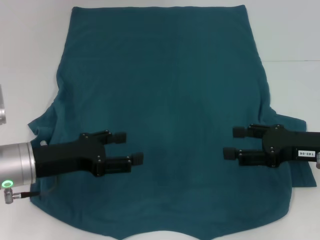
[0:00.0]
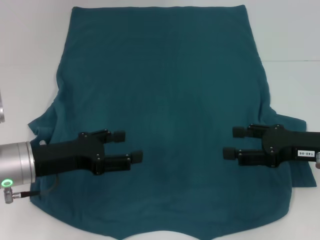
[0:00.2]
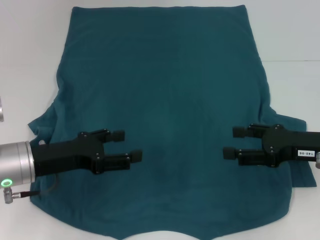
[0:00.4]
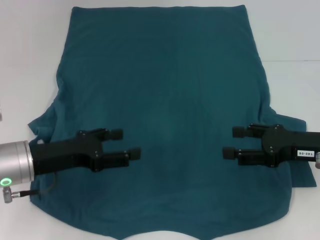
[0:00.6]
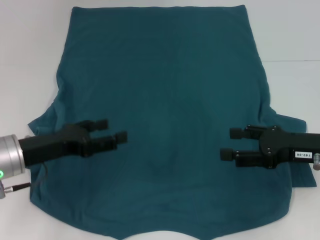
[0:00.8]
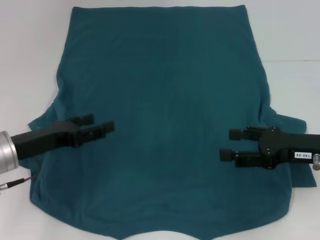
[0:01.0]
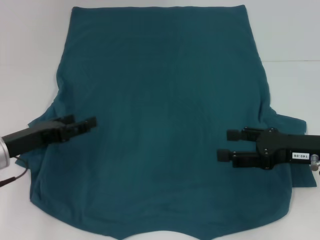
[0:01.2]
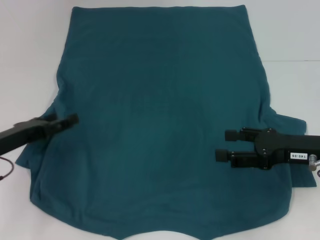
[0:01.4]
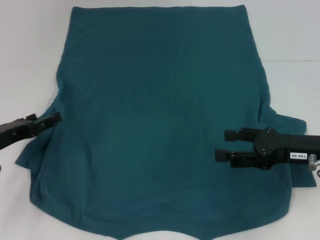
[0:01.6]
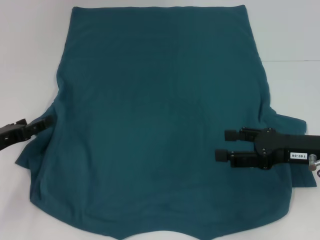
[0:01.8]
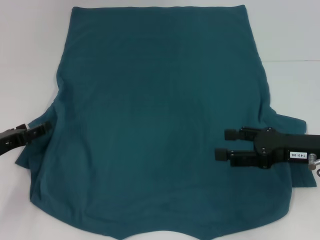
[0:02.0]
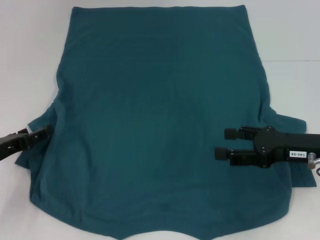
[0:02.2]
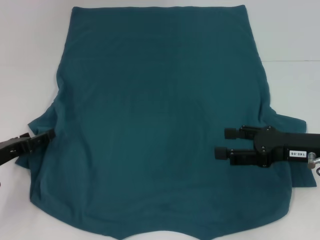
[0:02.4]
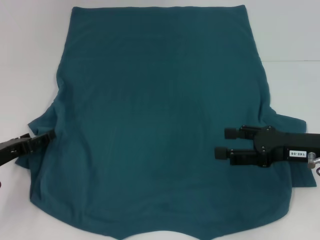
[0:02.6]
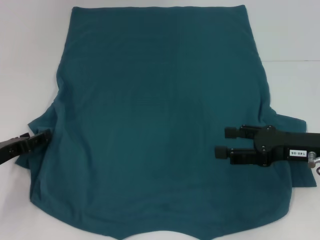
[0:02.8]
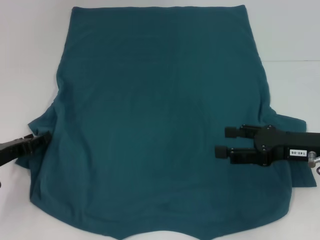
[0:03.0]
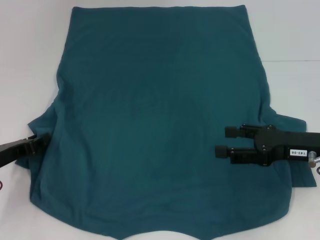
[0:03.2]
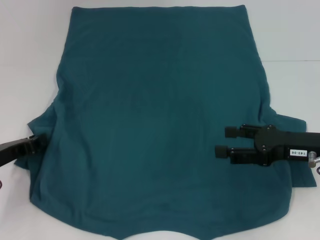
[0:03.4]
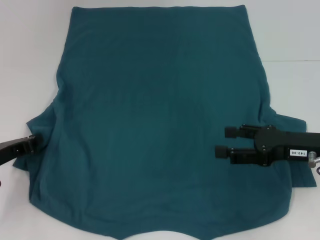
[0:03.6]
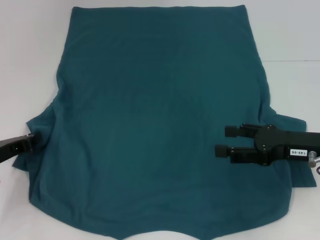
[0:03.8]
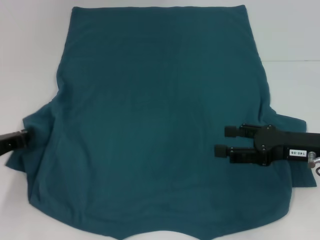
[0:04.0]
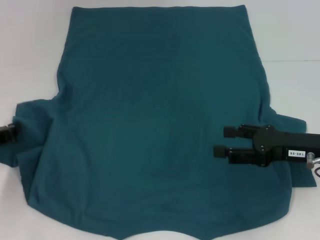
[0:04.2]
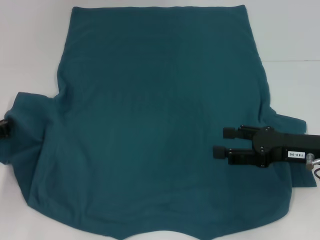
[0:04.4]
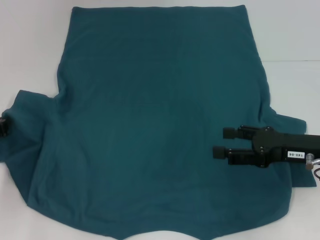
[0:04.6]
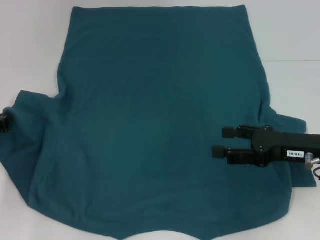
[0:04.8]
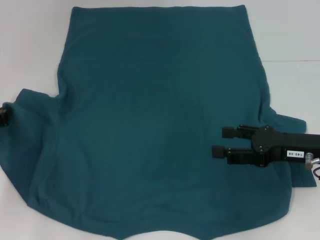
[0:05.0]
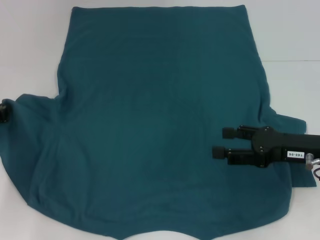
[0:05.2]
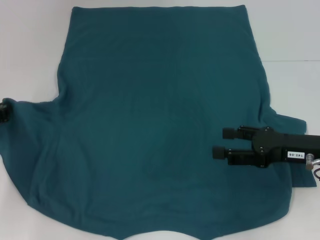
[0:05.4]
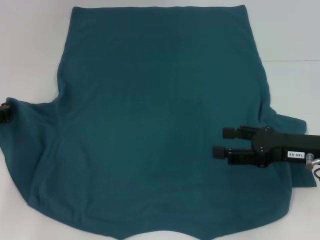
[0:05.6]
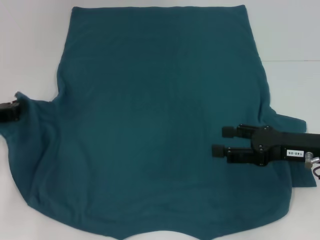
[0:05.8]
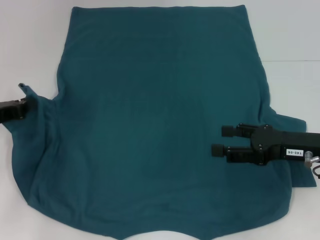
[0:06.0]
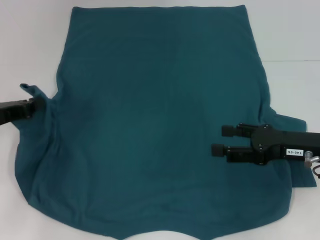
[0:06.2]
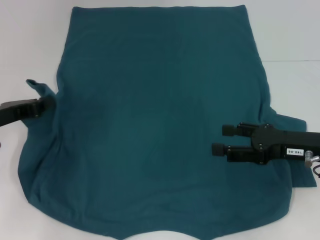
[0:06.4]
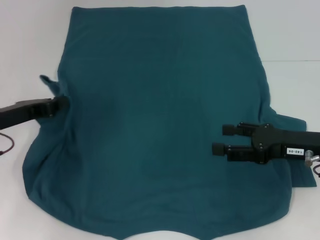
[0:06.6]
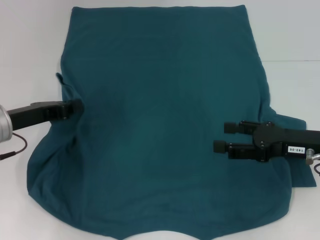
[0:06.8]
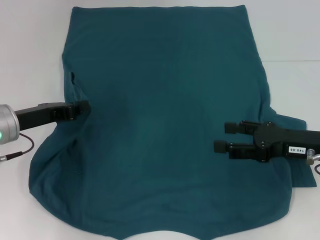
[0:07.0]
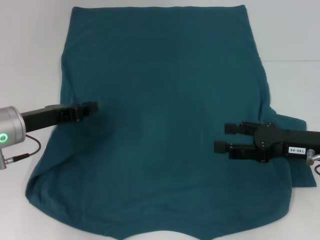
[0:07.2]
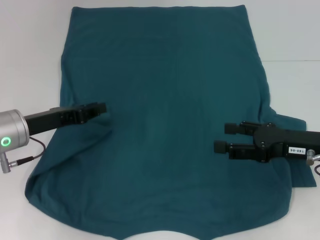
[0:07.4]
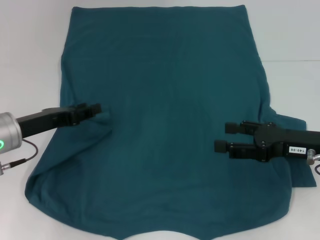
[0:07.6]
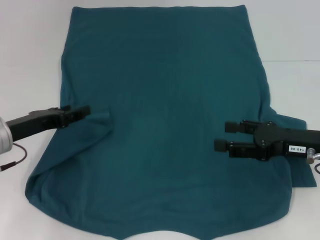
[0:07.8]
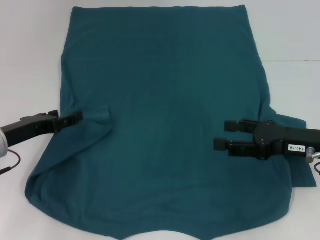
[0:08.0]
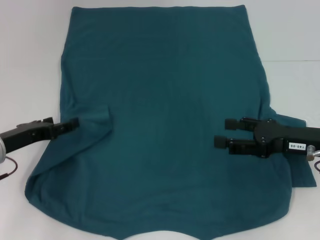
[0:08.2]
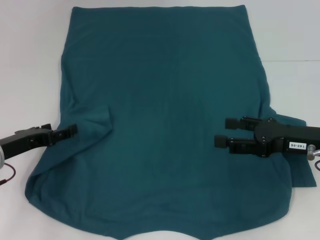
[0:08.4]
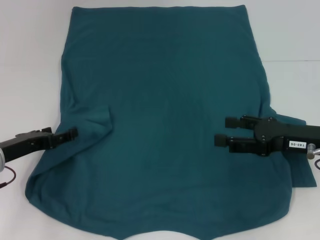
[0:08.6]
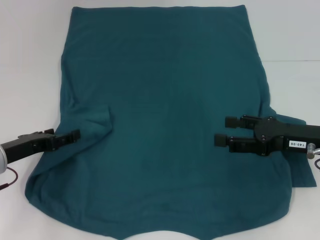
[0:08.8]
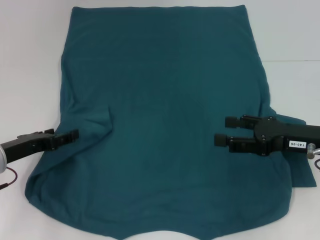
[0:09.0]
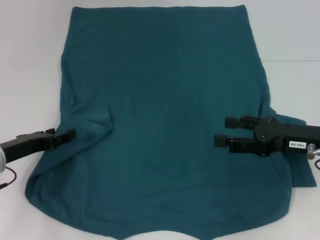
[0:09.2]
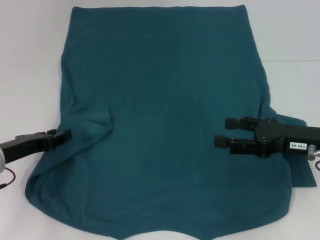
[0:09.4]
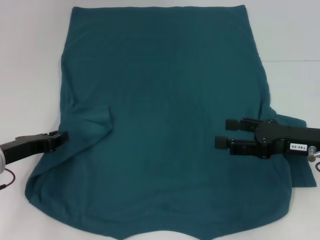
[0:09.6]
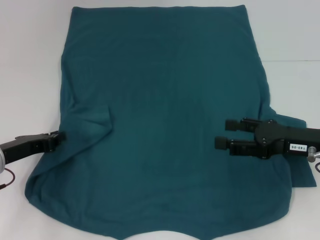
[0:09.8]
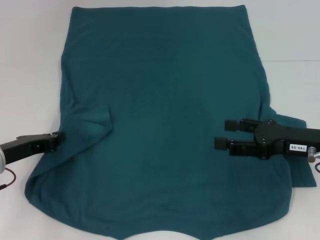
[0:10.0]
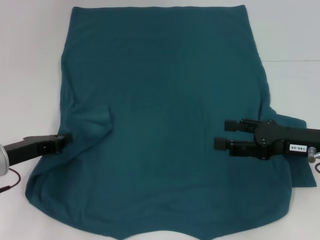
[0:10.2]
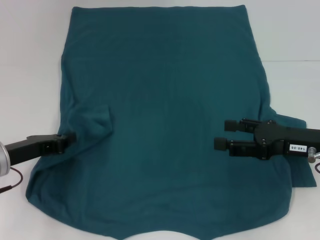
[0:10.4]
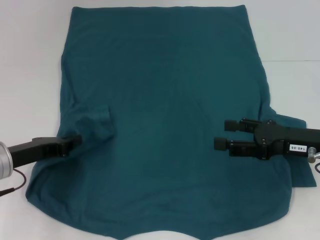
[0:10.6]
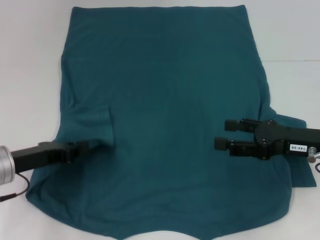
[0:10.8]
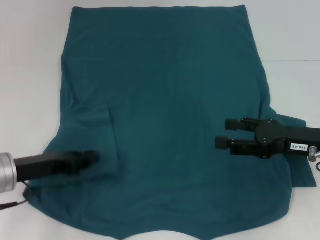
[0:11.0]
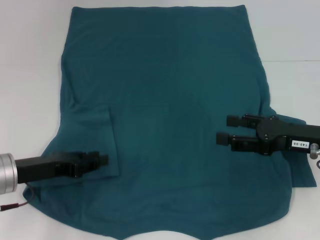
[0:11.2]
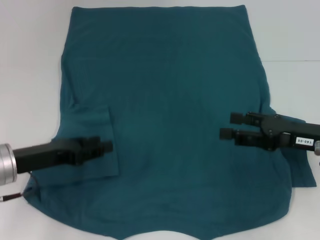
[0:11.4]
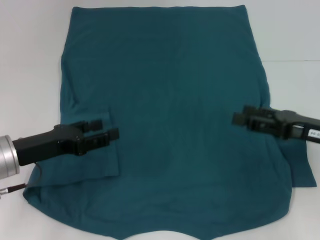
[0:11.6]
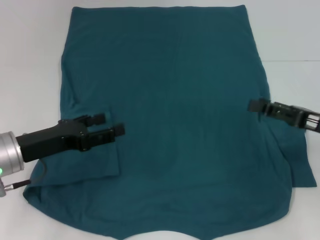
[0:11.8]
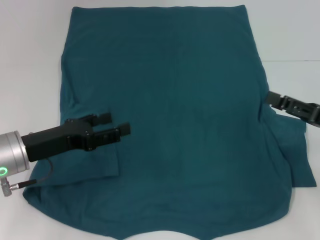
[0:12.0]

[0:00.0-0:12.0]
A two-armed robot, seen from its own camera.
Step, 0:00.0 to 0:11.2: Fold the bottom left sleeve with your left hand.
0:00.0 to 0:01.6: The left gripper travels to the left by some 10 cm.
0:01.6 to 0:03.0: The grippers make only small movements.
0:03.0 to 0:04.4: The left gripper closes up.
0:04.4 to 0:06.0: The grippers stay close to where they were, moving slightly.
0:06.0 to 0:07.6: The left gripper travels to the right by approximately 5 cm.
0:07.6 to 0:09.0: The left gripper moves approximately 5 cm, and opens its fingers.
0:09.0 to 0:10.4: The left gripper closes its fingers.
0:10.4 to 0:12.0: The right gripper moves to the right, some 5 cm. The left gripper opens its fingers.

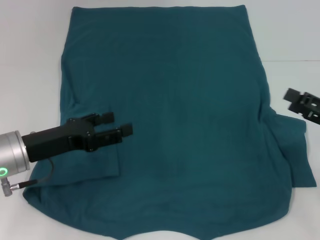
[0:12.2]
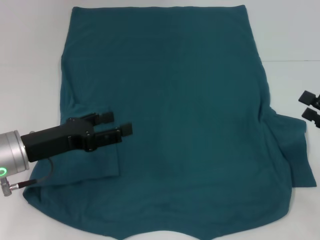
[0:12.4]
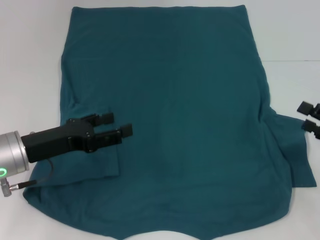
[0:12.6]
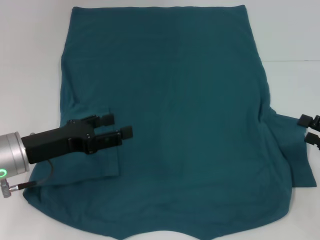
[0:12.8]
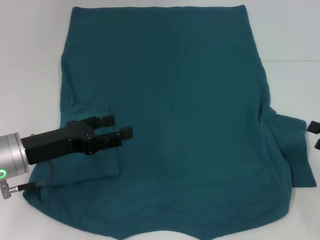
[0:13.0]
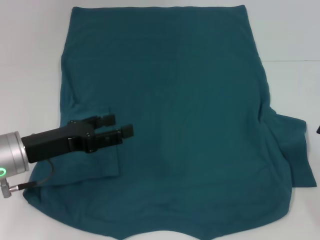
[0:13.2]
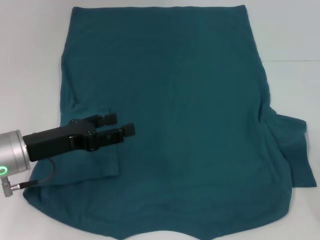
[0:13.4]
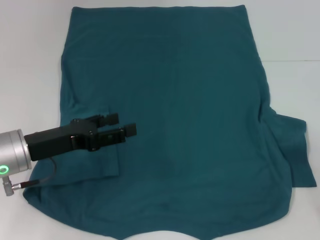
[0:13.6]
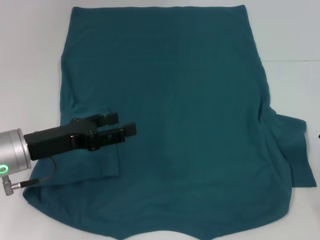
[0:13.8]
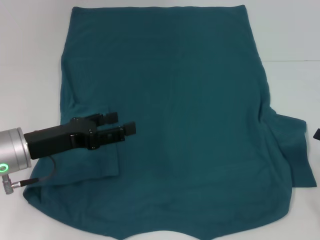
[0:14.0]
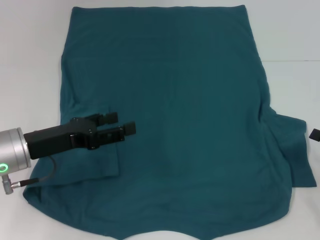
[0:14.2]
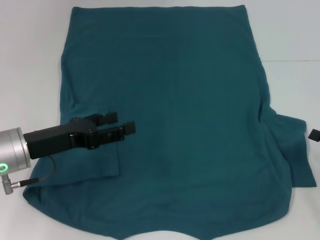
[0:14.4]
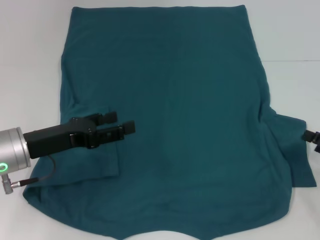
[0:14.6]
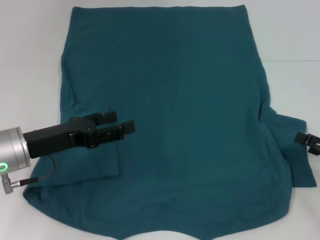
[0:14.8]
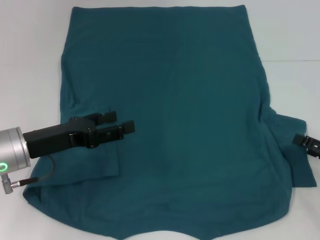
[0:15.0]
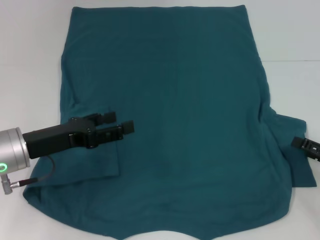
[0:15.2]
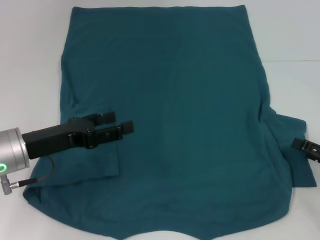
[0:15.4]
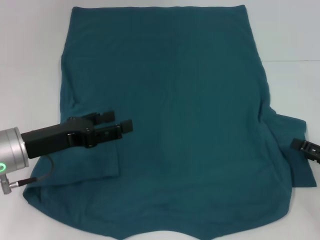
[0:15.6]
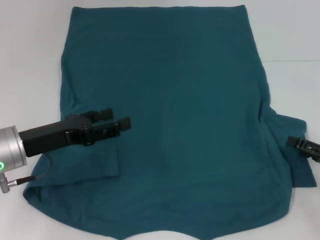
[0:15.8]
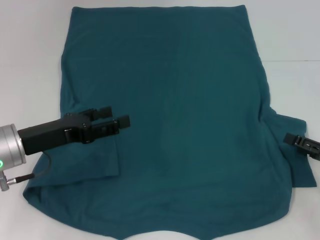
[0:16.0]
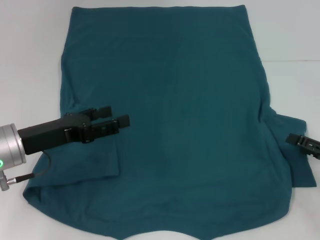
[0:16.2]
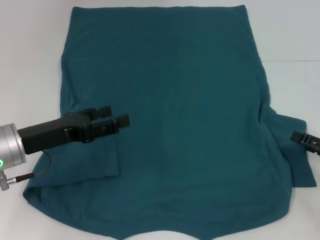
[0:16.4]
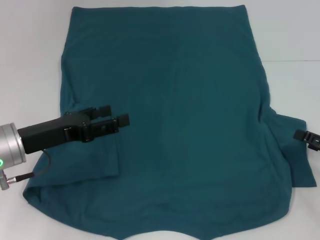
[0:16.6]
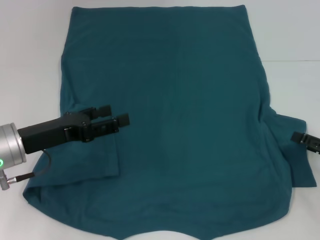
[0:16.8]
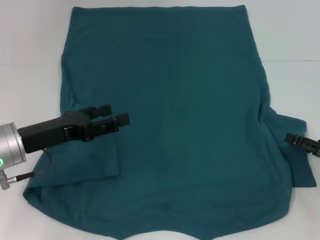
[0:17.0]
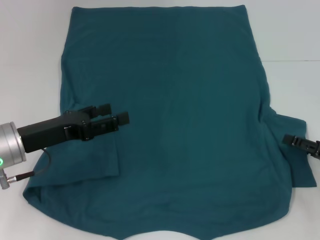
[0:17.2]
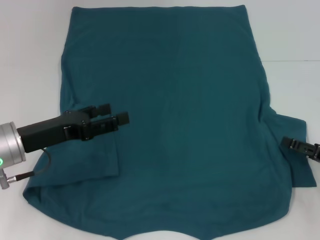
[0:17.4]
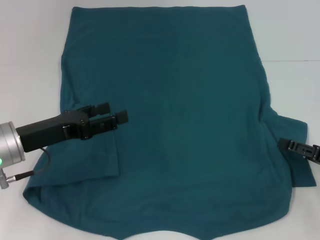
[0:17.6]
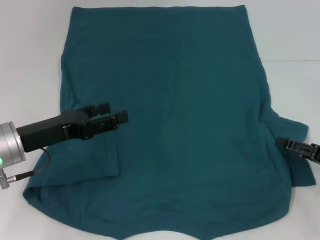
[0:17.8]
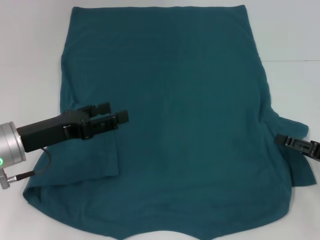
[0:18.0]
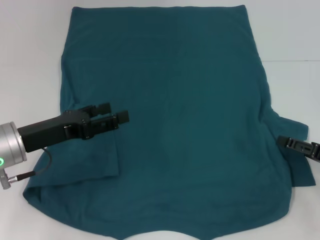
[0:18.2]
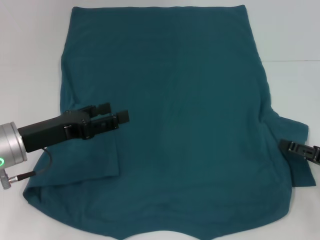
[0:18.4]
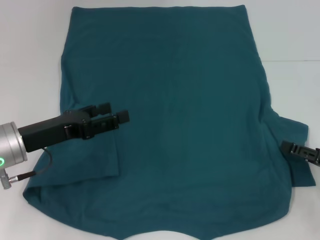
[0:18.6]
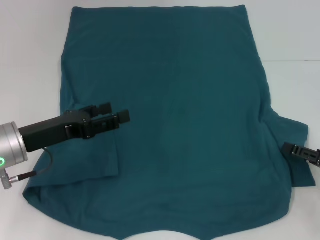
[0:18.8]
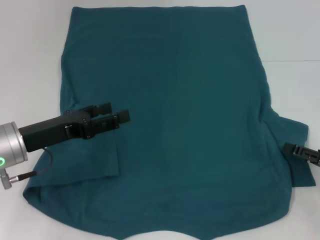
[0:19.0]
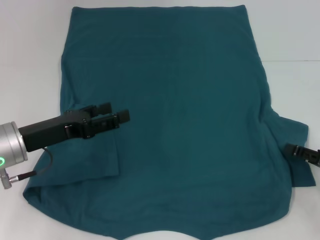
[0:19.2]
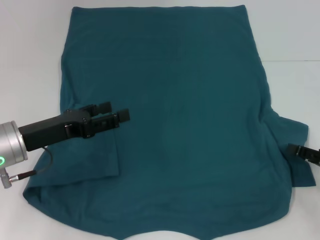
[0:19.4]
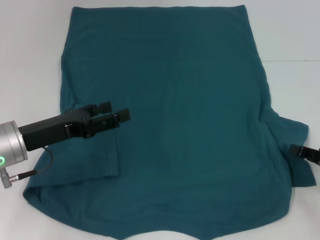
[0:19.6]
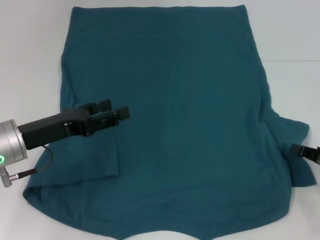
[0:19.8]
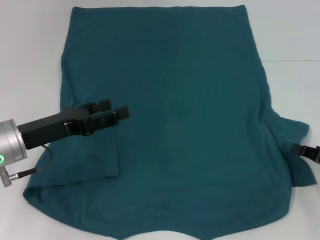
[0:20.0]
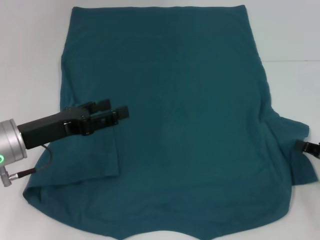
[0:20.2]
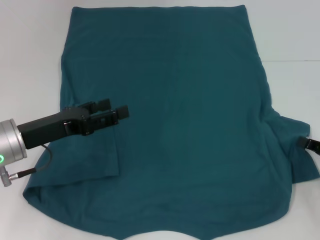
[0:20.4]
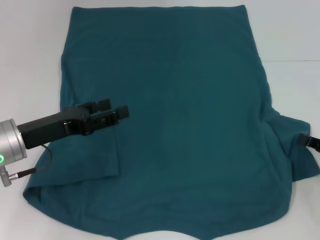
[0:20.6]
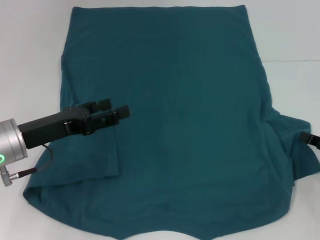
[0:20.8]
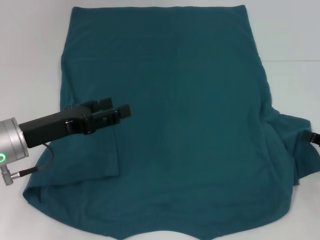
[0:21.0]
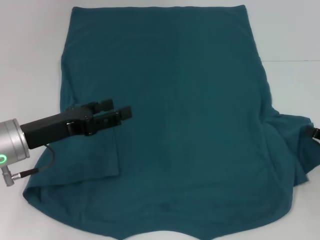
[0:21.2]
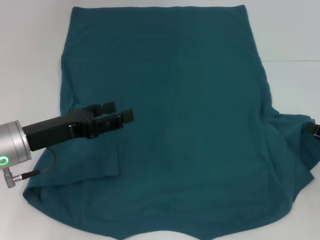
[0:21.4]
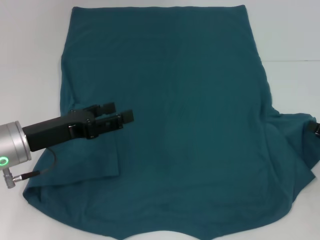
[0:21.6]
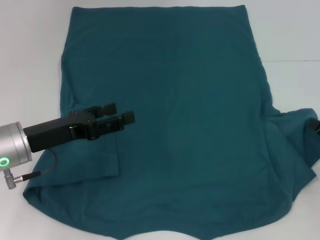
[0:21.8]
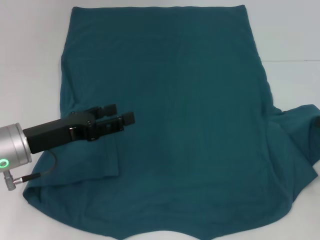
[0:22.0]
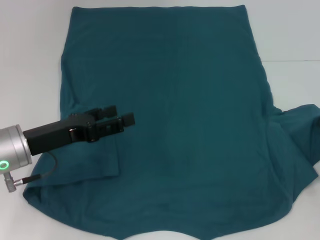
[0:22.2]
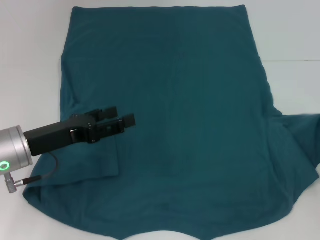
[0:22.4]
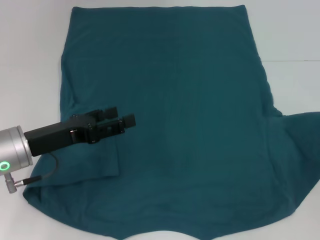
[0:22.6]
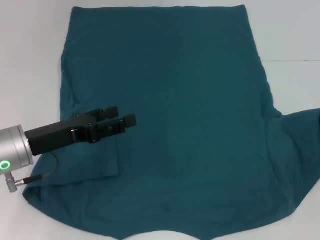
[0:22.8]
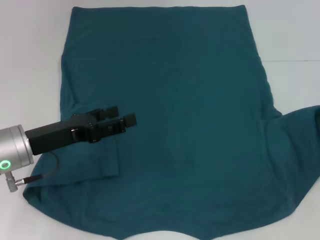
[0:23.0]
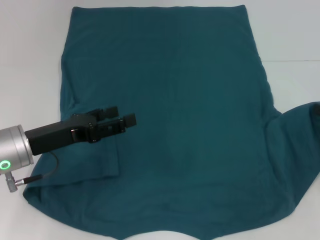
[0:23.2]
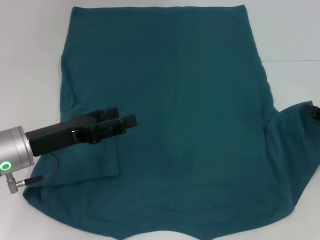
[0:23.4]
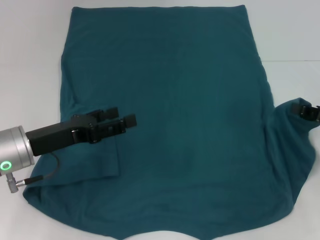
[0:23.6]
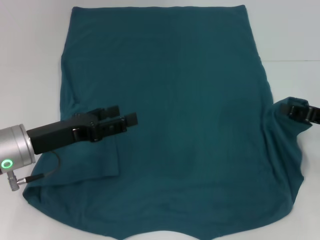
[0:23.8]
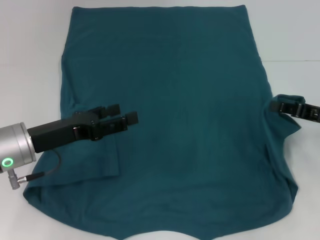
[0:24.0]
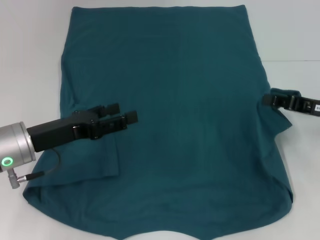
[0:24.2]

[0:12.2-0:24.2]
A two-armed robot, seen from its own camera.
0:12.2 to 0:13.8: The right gripper goes some 5 cm to the right.
0:13.8 to 0:15.2: The grippers move only a little.
0:15.2 to 0:16.6: Both grippers stay put.
0:16.6 to 0:18.2: There are only small adjustments of the grippers.
0:18.2 to 0:19.8: The right gripper closes.
0:19.8 to 0:21.2: The right gripper closes up.
0:21.2 to 0:22.6: The grippers make only small movements.
0:22.6 to 0:24.2: The right gripper moves to the left and forward, about 10 cm.
